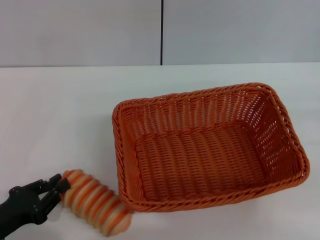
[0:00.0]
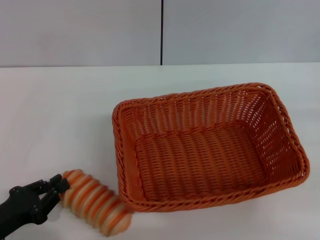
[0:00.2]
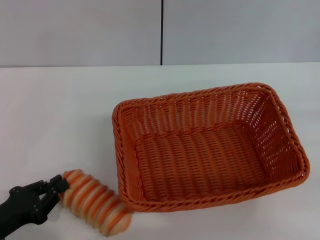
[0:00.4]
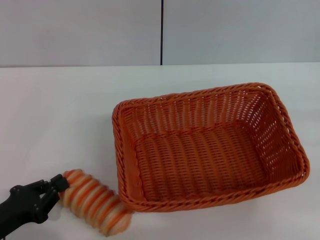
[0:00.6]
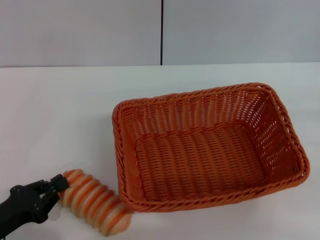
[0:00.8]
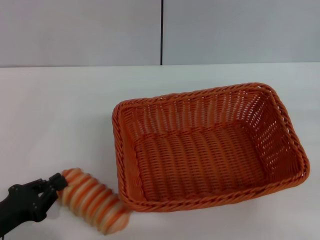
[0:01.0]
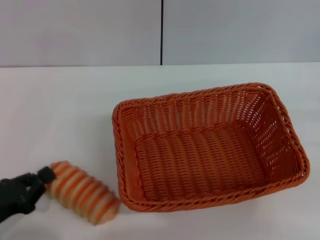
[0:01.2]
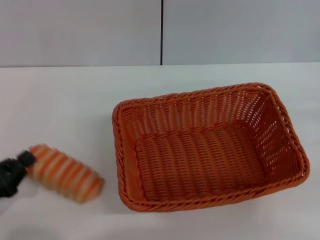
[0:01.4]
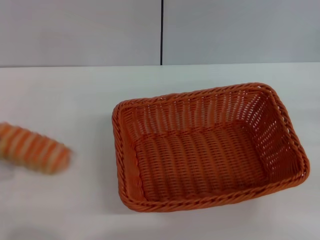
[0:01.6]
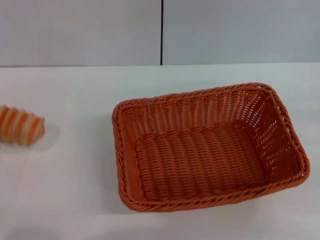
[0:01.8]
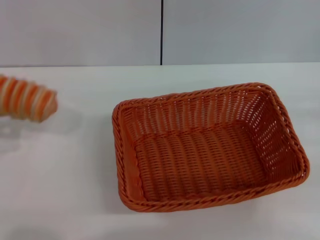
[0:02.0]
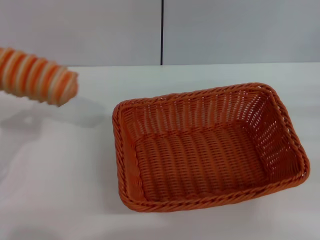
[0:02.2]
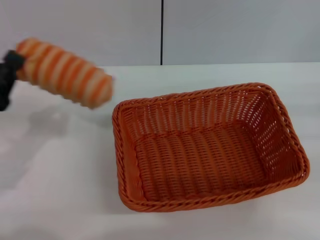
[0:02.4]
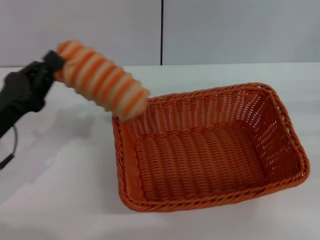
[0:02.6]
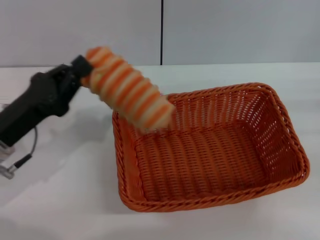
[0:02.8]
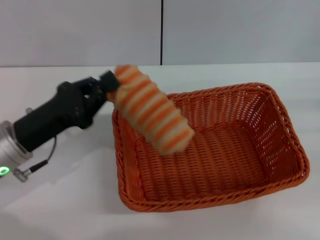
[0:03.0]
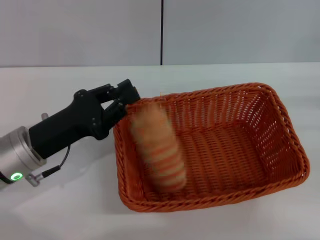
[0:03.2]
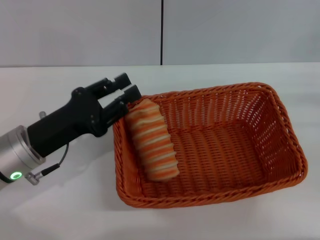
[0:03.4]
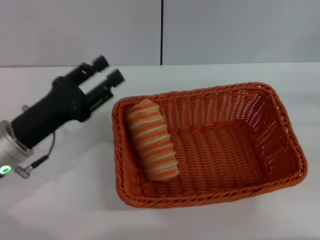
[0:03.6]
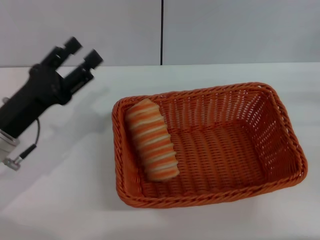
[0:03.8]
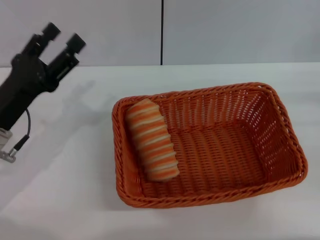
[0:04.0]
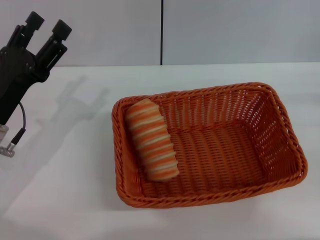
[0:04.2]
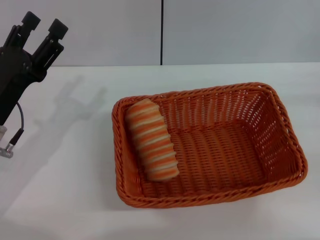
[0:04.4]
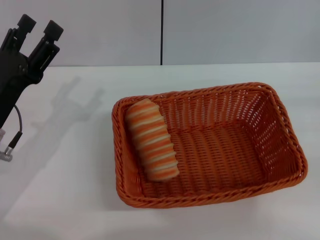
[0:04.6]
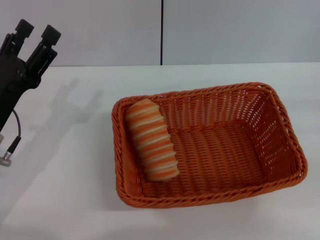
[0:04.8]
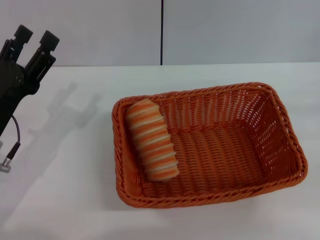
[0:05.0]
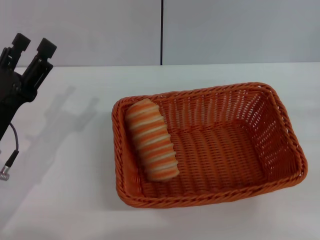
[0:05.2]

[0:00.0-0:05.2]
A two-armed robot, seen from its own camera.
Step, 0:02.0 to 0:03.8: Place the long bread into the light basket with the left gripper.
0:00.0 to 0:01.8: The left gripper shifts approximately 5 cm to the left.
0:01.8 to 0:03.4: The right gripper ends up approximately 5 cm from where it was; the left gripper heads to the right and forward, covering about 20 cm.
0:03.4 to 0:05.2: The left gripper opens up.
